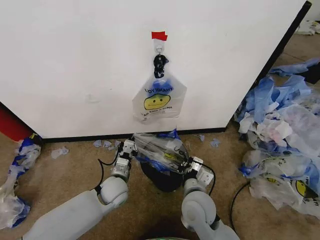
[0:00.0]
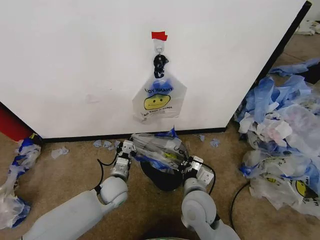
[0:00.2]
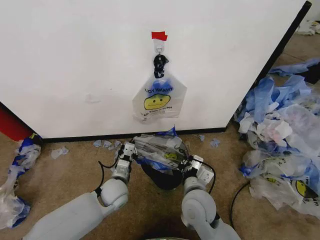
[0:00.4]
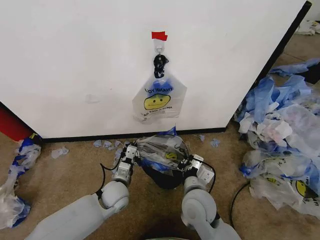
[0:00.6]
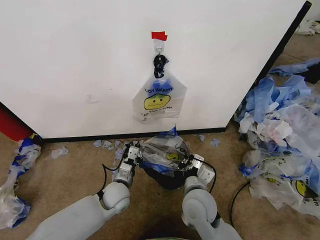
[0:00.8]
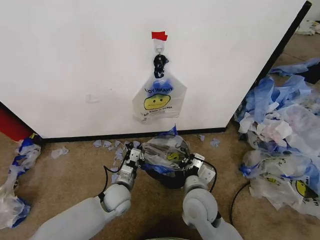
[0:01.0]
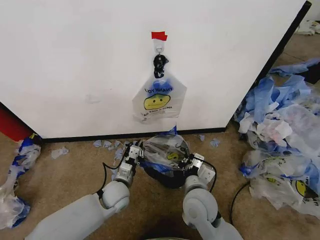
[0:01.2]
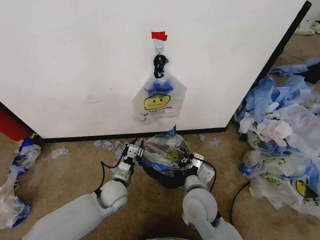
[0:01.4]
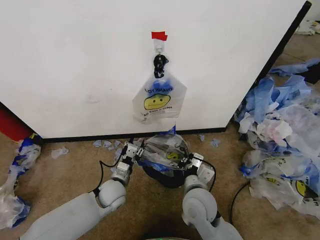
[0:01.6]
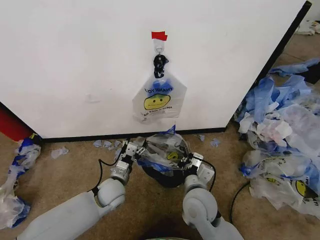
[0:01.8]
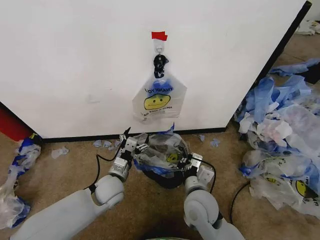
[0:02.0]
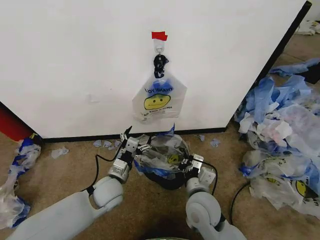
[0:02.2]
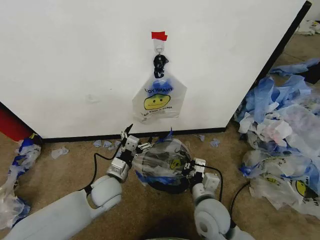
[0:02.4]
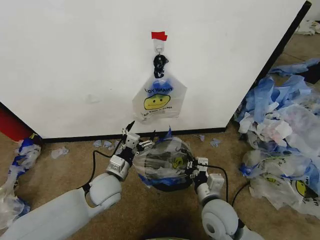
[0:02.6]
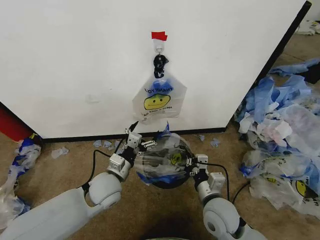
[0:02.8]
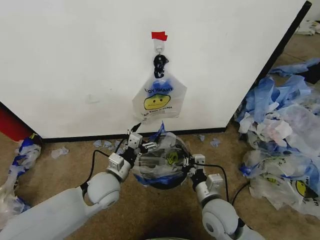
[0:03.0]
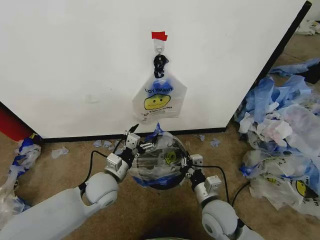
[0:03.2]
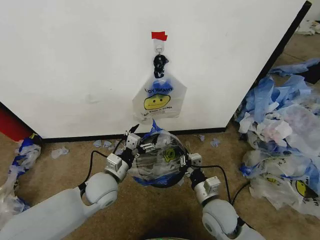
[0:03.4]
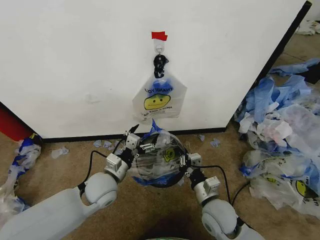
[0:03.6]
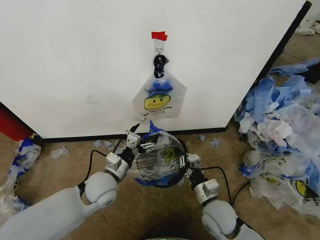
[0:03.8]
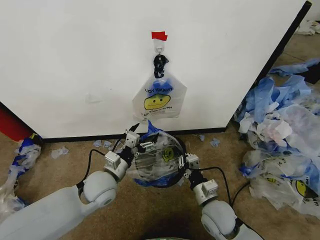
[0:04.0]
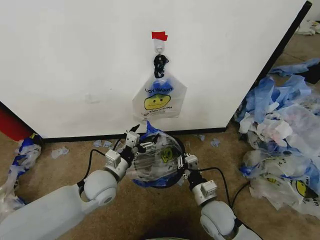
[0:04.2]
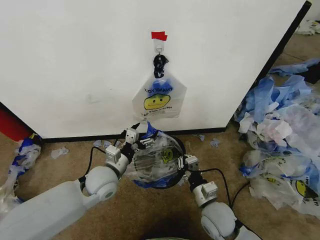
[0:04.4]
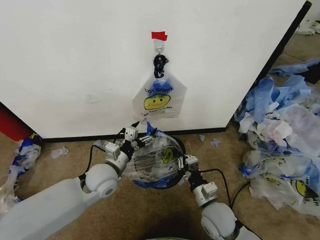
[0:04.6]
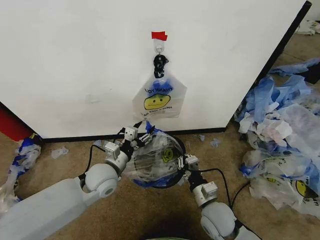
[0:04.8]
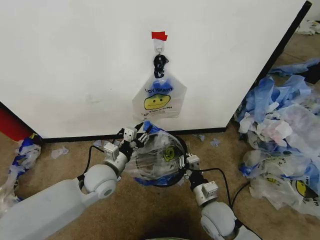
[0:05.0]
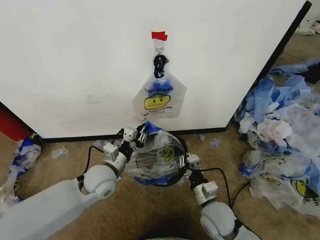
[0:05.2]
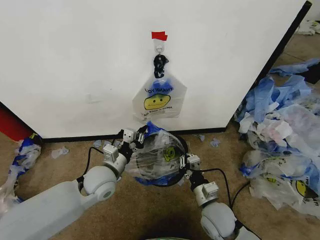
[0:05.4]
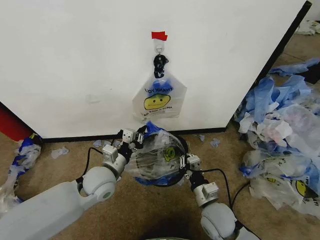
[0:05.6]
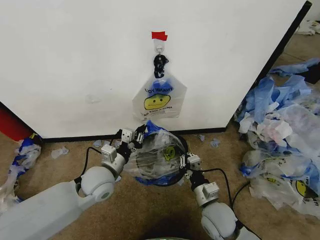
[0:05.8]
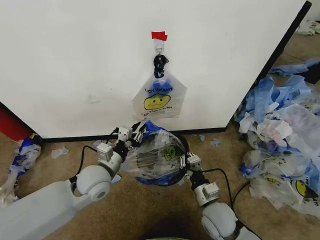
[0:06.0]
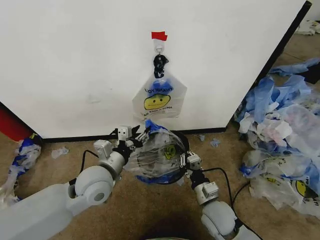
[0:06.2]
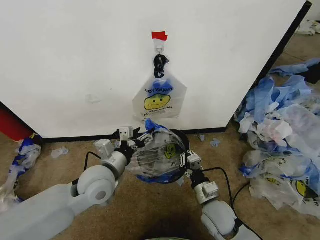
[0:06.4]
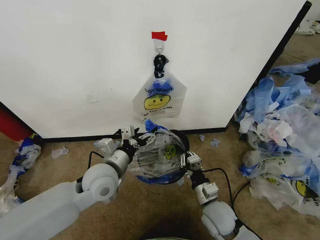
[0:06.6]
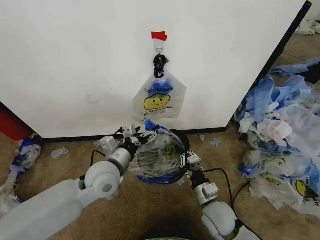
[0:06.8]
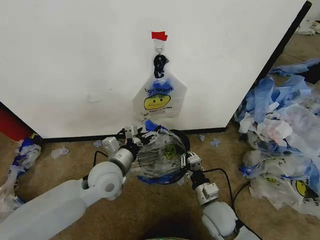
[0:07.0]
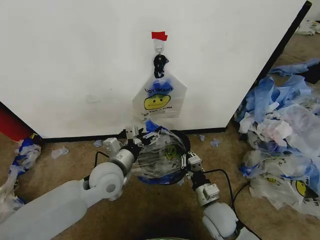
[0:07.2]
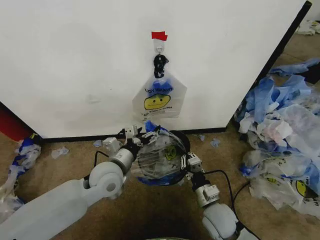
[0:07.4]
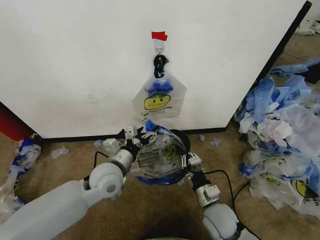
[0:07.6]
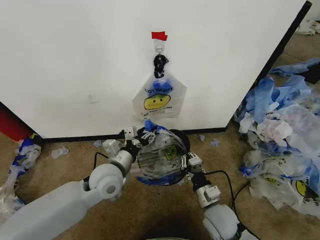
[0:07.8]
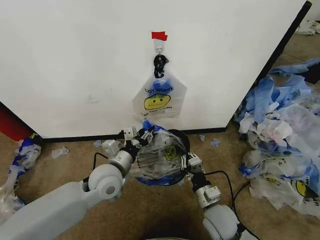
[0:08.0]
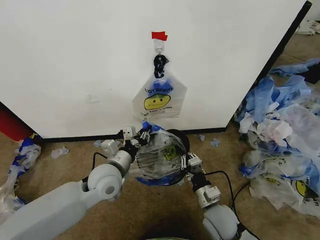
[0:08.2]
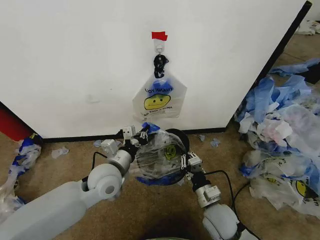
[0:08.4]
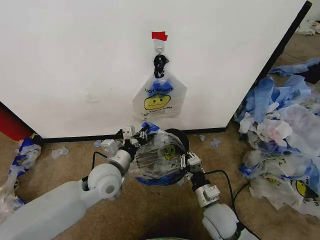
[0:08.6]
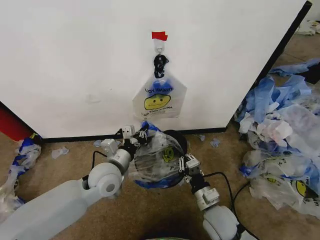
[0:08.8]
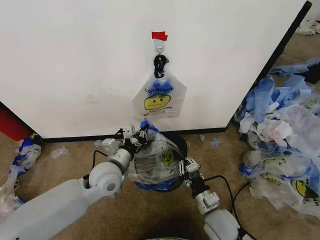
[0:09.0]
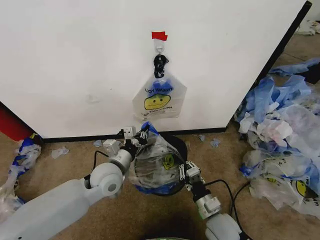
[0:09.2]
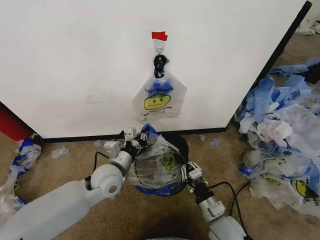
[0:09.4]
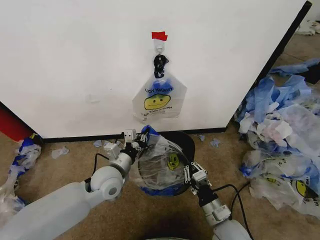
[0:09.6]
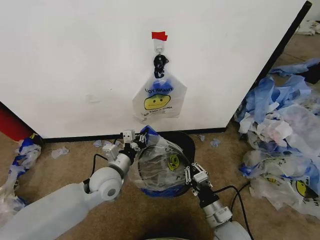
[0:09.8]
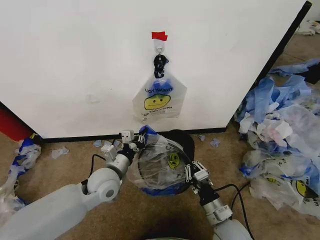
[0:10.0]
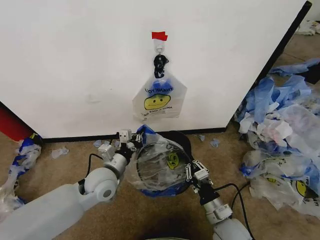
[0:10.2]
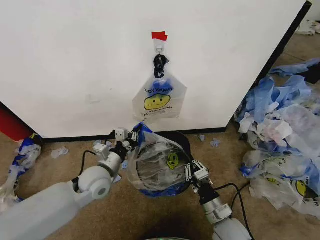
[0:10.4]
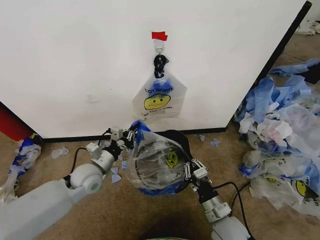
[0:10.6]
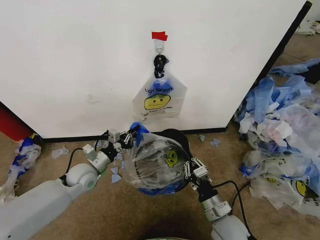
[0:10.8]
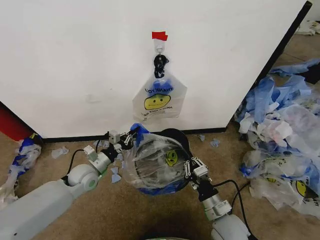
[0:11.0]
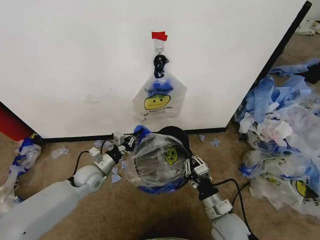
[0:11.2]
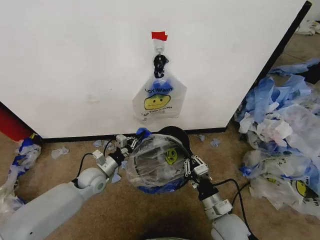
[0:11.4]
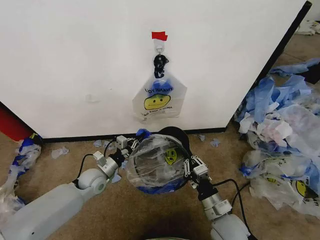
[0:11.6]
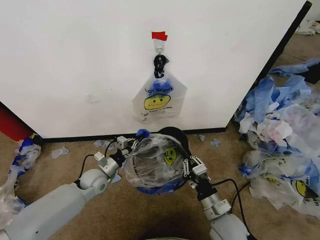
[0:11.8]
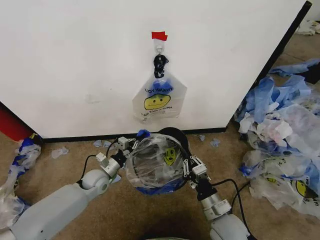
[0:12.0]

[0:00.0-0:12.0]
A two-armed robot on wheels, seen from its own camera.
Task of the whole recording: Pick up the garbage bag from the wall and place it over the trash bin.
0:00.0 to 0:01.6: The left gripper opens up.
0:01.6 to 0:03.0: The left gripper travels upward by some 10 cm, and opens its fingers; the right gripper is displaced to the right by some 5 cm.
0:03.0 to 0:04.4: The grippers make only small movements.
0:04.4 to 0:06.0: The left gripper closes up.
0:06.0 to 0:07.6: The left gripper opens.
0:07.6 to 0:09.0: The left gripper closes.
0:09.0 to 0:10.4: The grippers make only small movements.
0:10.4 to 0:12.0: The left gripper heads downward, forward and to the left, covering approximately 15 cm.

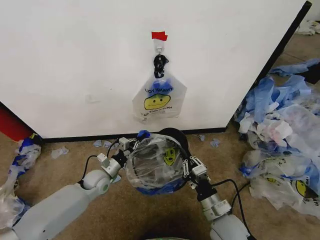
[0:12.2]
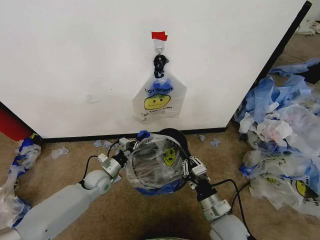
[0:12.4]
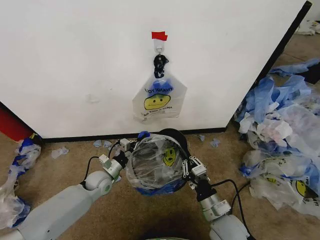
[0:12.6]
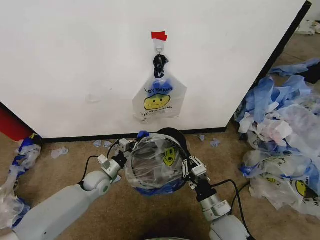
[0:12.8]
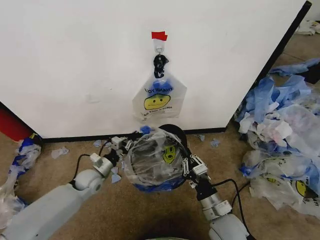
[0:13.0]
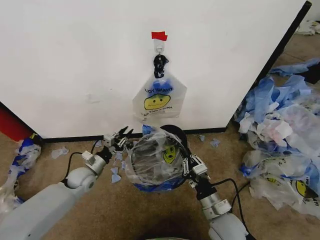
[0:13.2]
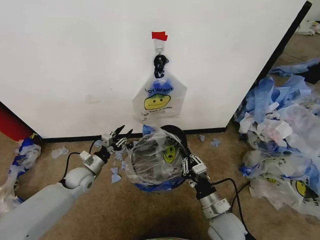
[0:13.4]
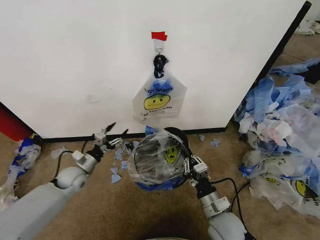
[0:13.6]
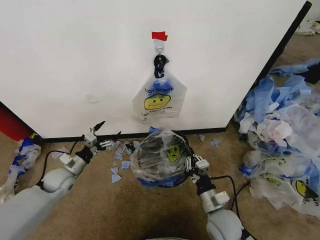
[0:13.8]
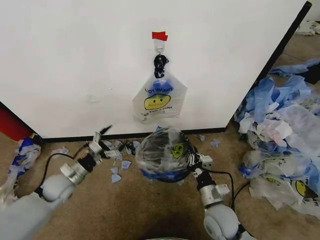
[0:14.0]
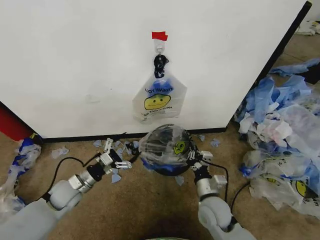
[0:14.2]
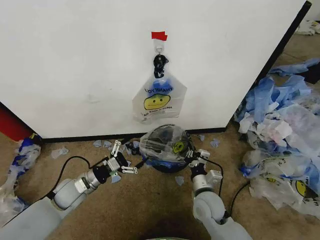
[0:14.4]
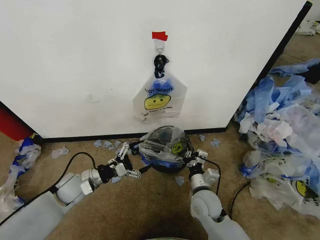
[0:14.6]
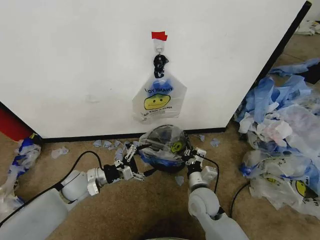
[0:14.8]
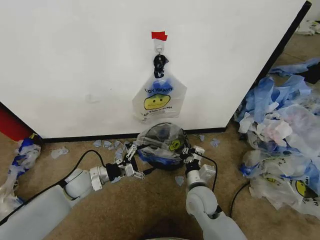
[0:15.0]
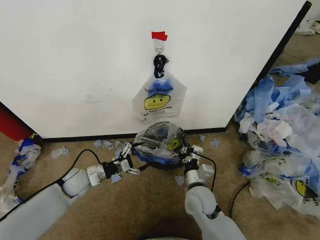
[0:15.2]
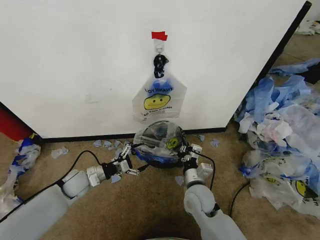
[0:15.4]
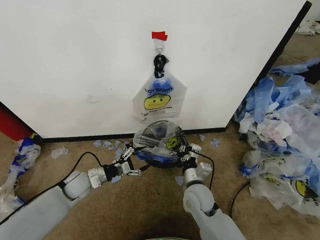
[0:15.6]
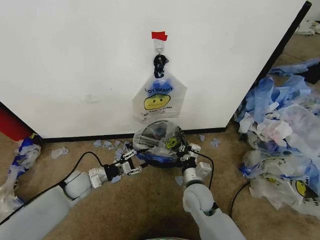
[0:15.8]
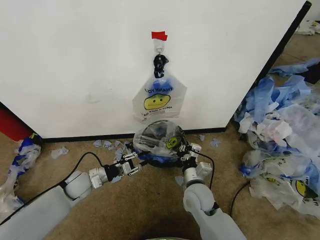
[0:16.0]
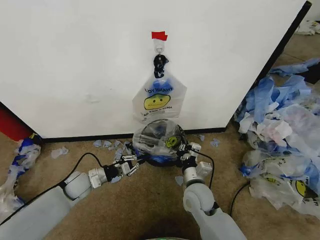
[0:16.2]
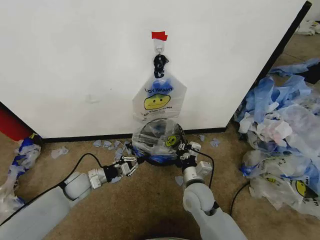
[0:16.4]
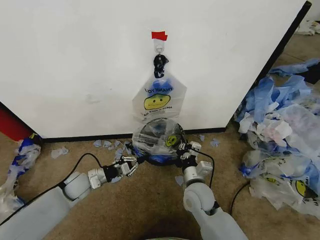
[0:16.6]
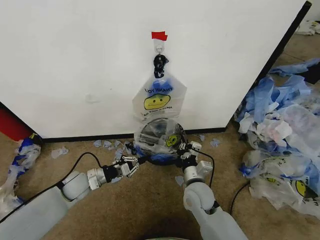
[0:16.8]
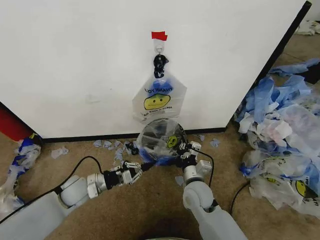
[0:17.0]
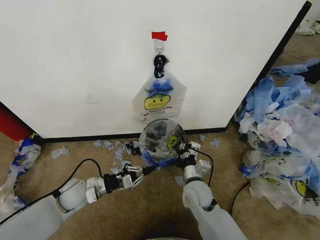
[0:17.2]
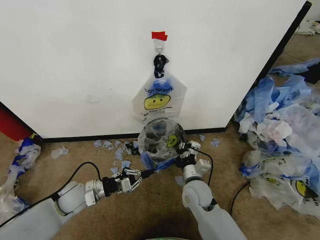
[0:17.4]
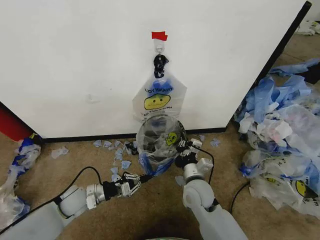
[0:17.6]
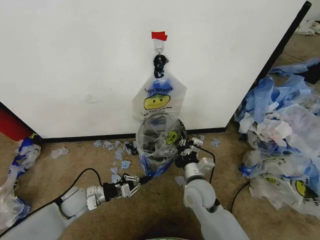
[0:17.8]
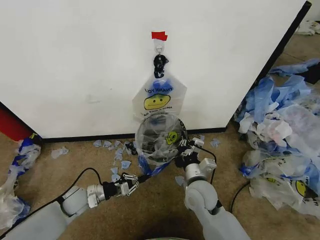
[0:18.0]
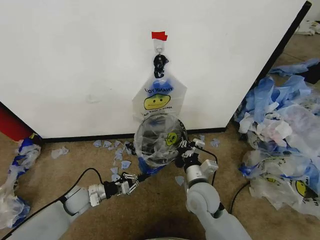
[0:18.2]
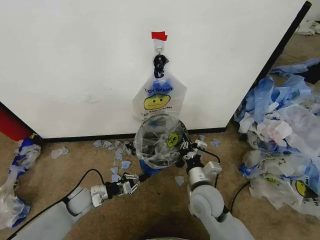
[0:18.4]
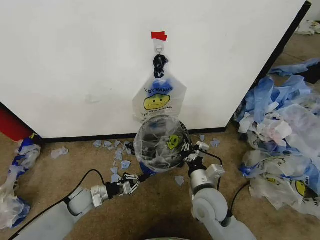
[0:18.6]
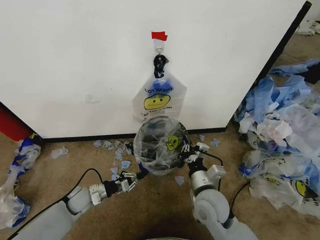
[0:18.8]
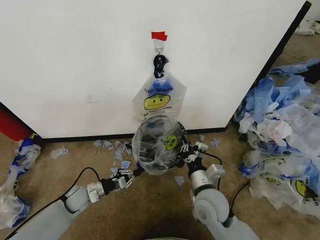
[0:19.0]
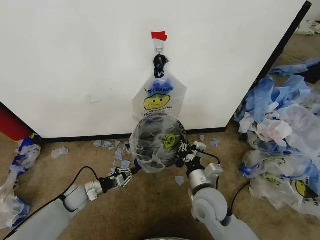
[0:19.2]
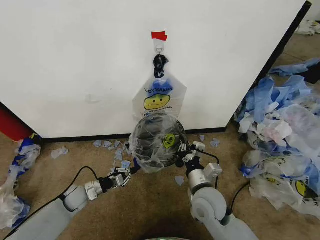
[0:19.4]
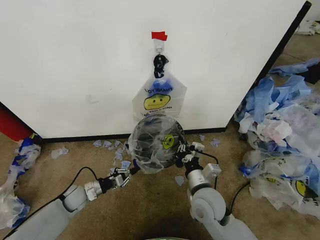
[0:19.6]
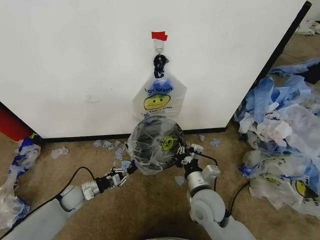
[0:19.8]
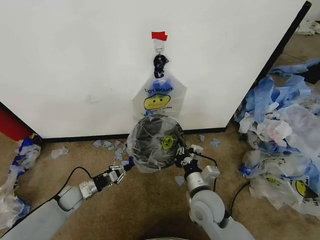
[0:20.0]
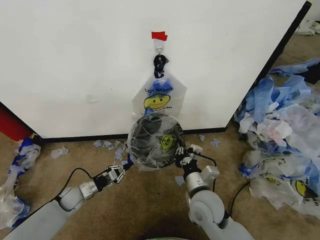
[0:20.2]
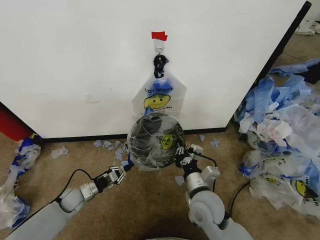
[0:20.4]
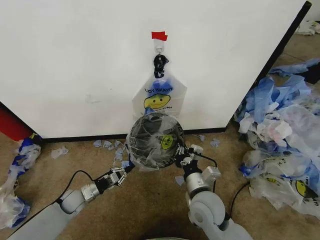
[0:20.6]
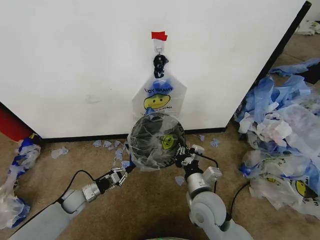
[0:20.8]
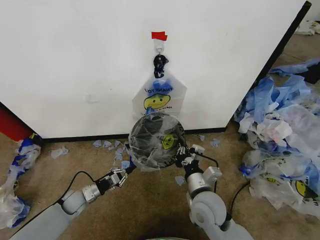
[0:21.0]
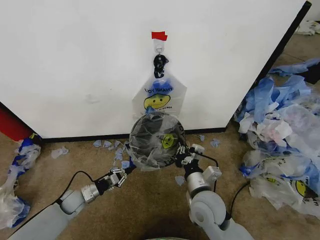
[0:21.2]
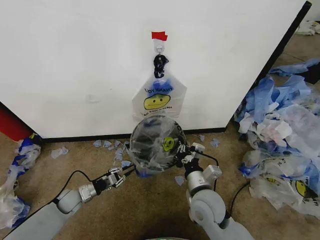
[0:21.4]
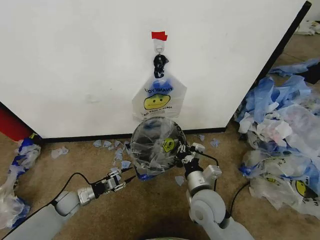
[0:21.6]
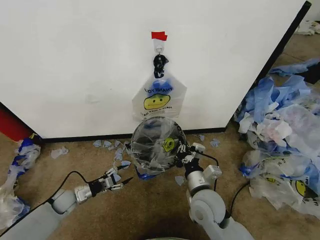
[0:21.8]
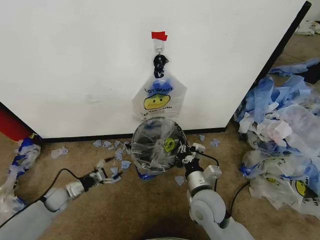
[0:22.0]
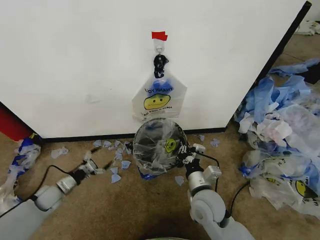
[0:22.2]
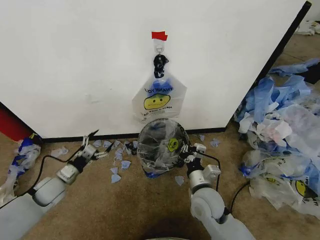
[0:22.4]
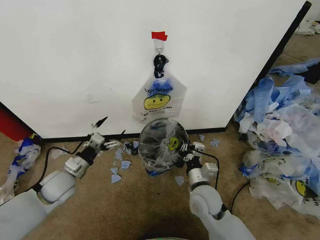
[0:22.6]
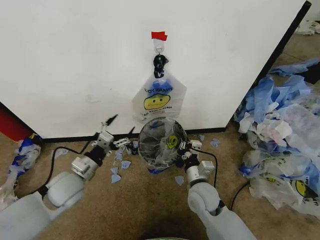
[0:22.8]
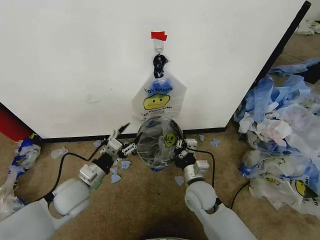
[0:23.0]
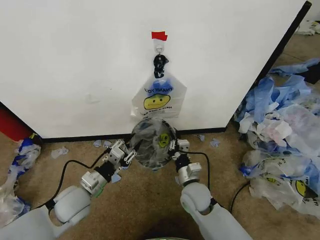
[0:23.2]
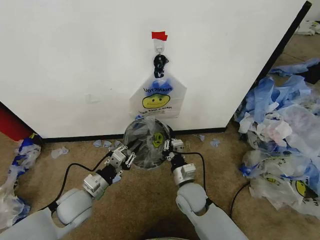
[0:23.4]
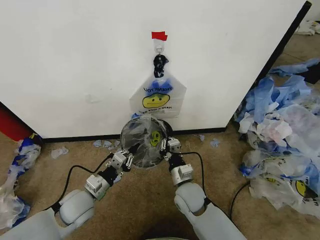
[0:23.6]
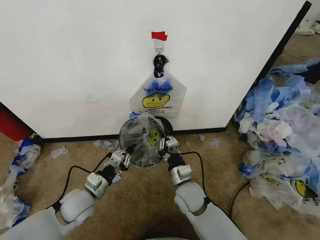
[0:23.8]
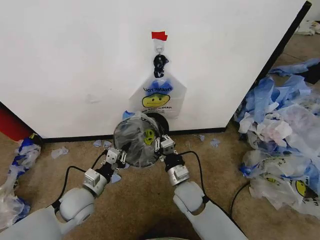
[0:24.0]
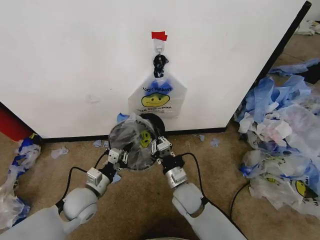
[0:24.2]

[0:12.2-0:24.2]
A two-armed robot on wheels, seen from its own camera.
Task of the whole recording: Pick up the garbage bag from the wall and place it over the trash bin.
0:12.2 to 0:13.8: The left gripper heads to the left, covering approximately 10 cm, and opens up.
0:13.8 to 0:15.2: The right gripper shifts about 10 cm forward and to the left. The left gripper travels to the right by roughly 5 cm.
0:15.2 to 0:16.6: The left gripper closes.
0:16.6 to 0:18.2: The left gripper shifts by roughly 5 cm.
0:18.2 to 0:19.8: The left gripper moves approximately 5 cm.
0:19.8 to 0:21.2: There are only small adjustments of the grippers.
0:21.2 to 0:22.6: The left gripper is displaced upward by some 20 cm, and opens.
0:22.6 to 0:24.2: The right gripper is displaced to the left by some 5 cm. Meanwhile the left gripper is displaced to the right by approximately 10 cm, and closes.
